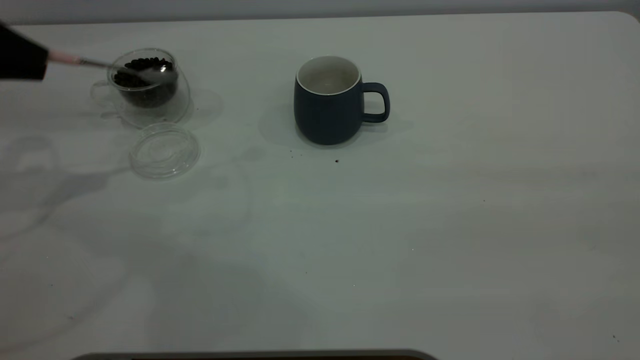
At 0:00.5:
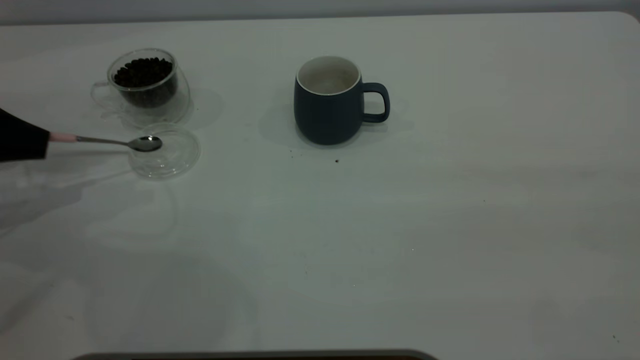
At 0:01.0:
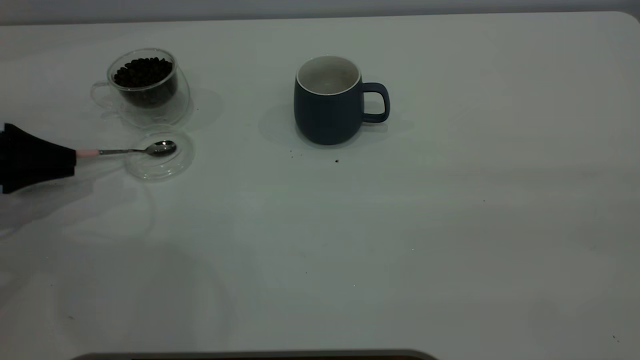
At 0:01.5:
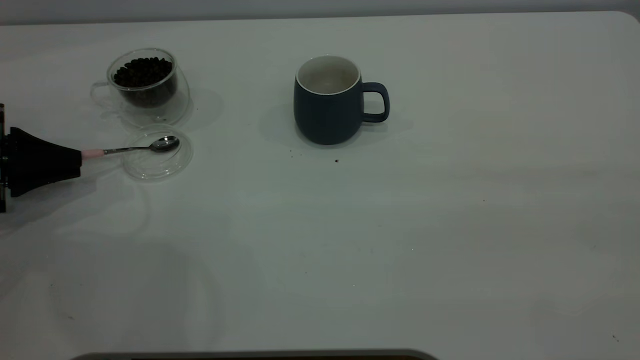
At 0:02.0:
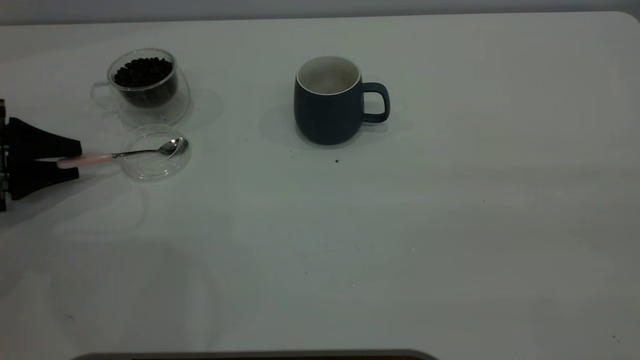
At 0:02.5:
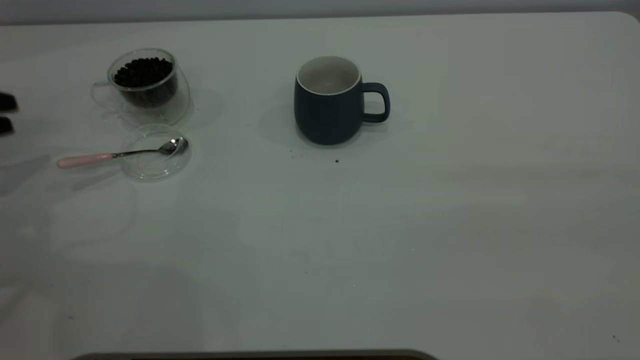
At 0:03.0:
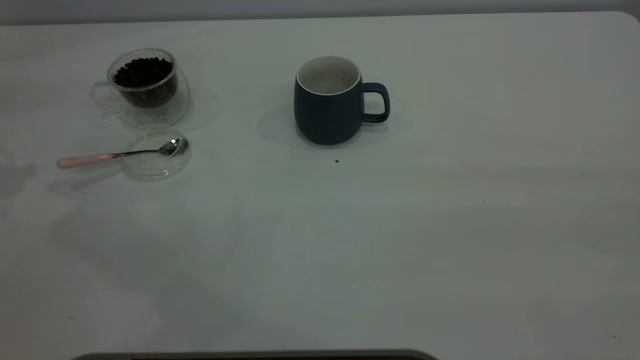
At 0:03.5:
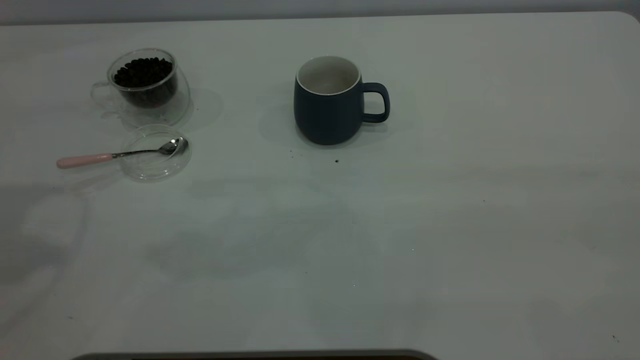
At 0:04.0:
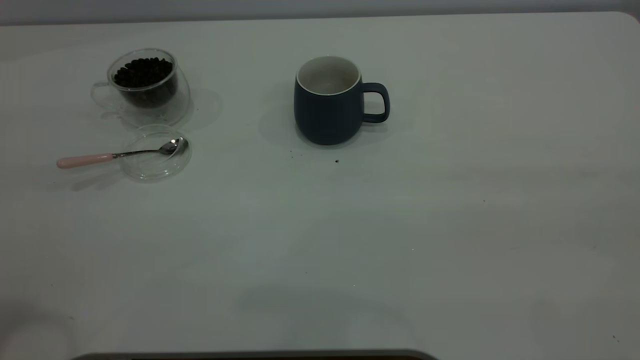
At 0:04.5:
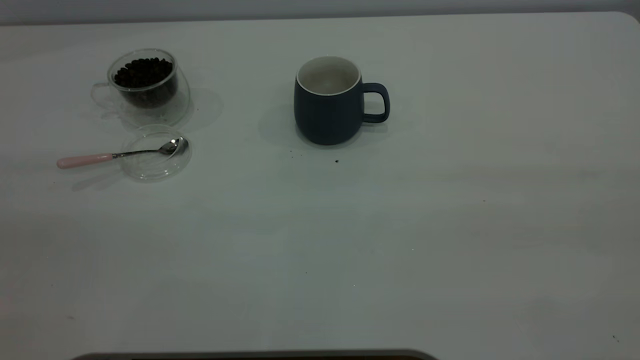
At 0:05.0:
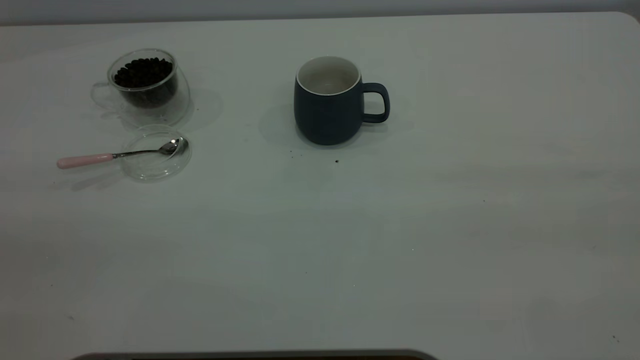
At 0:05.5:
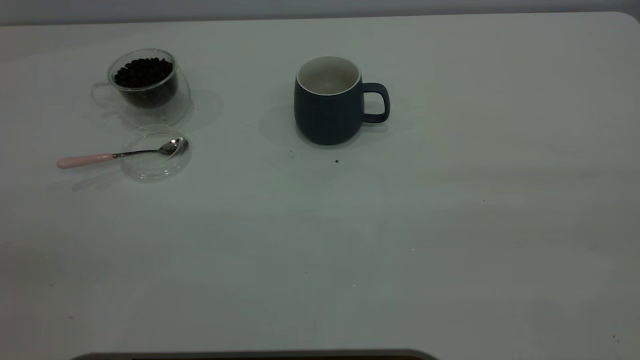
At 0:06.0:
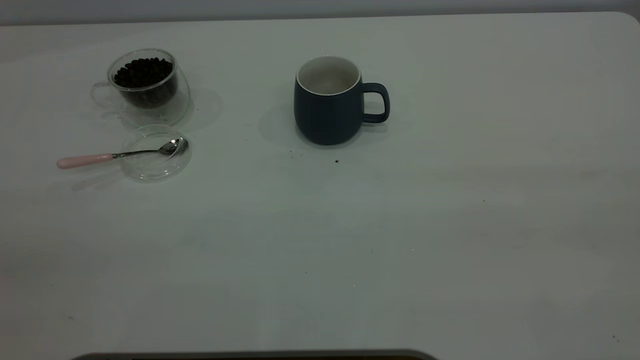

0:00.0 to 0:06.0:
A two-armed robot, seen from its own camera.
Task of the whole recording: the right gripper place the grey cup in the center of the table, the left gripper take the pink spoon from the cup lid and scoop out the coffee beans from the coffee cup and put them into the grey cup, the left gripper put the spoon back into the cup lid.
Step, 0:00.0 to 0:02.0: Place the spoon back in its original place.
0:00.0 to 0:02.0: The left gripper goes some 15 cm downward, and opens its fingers.
0:02.0 to 0:04.0: The left gripper is displaced upward and backward by roughly 40 cm.
